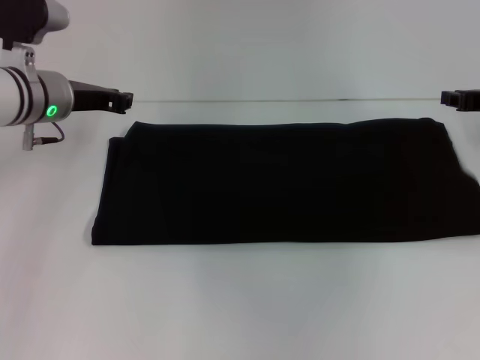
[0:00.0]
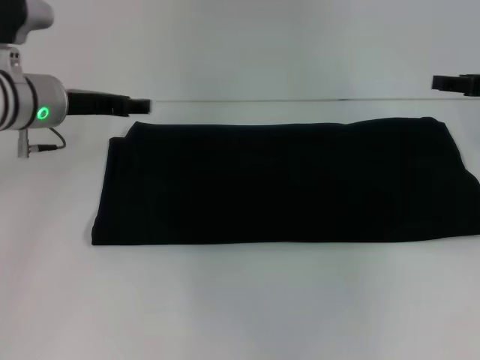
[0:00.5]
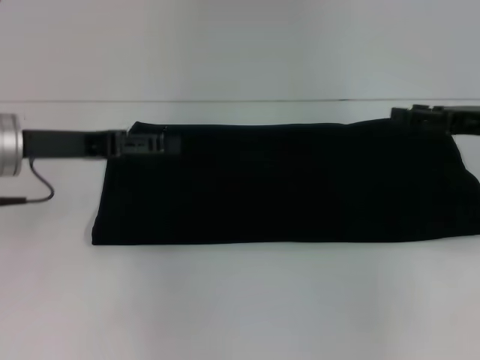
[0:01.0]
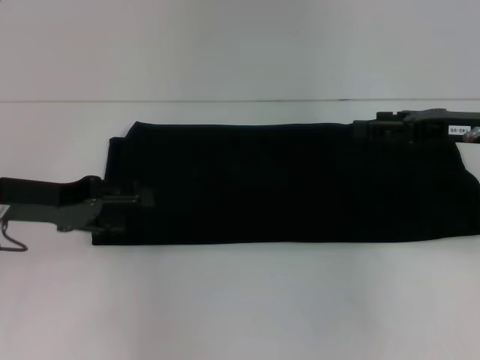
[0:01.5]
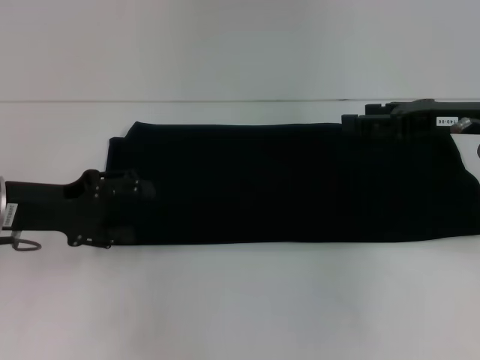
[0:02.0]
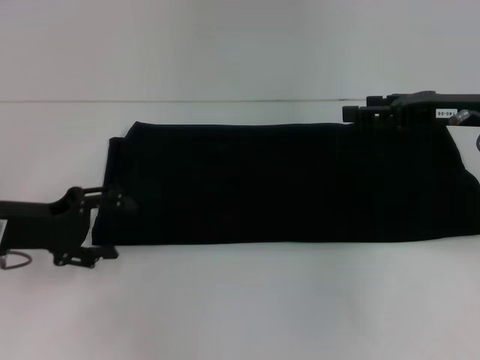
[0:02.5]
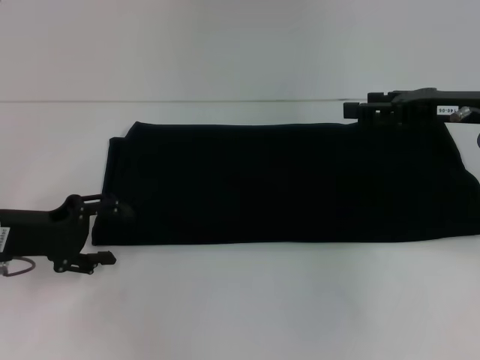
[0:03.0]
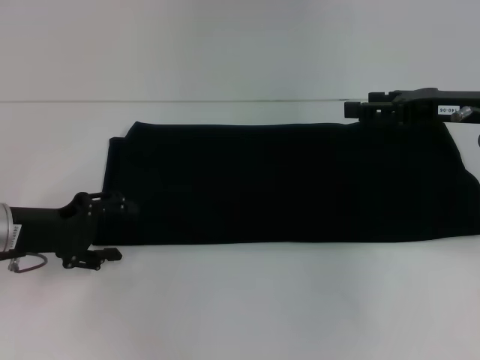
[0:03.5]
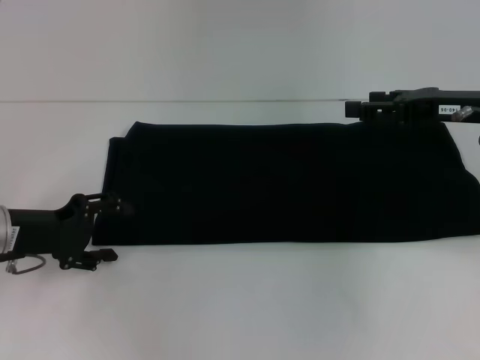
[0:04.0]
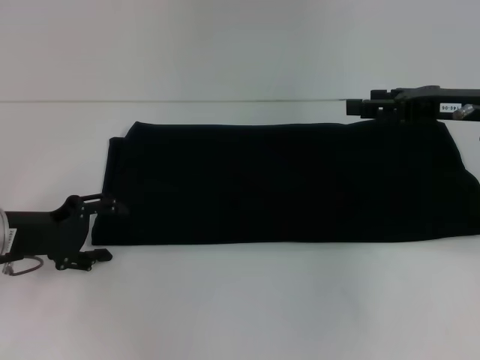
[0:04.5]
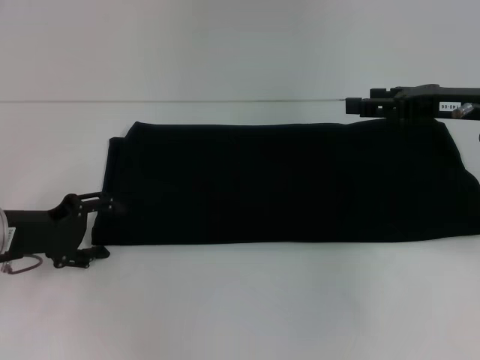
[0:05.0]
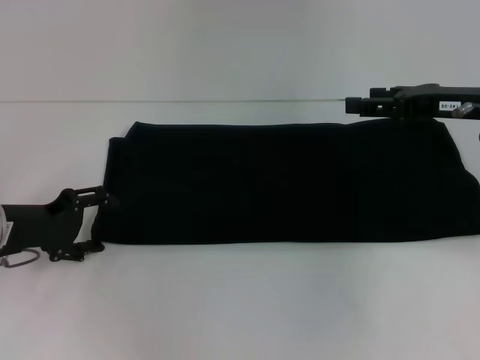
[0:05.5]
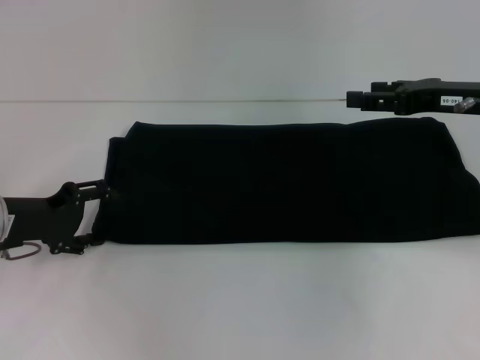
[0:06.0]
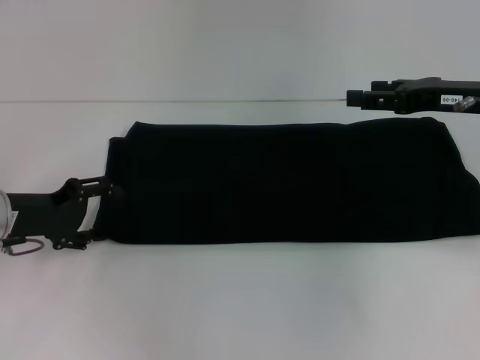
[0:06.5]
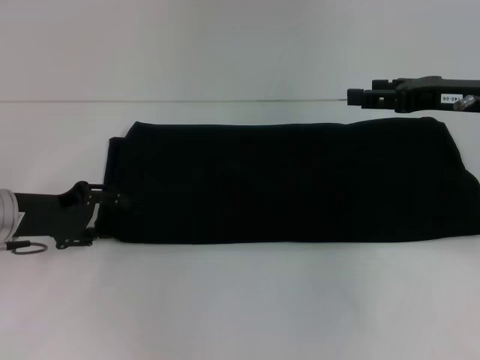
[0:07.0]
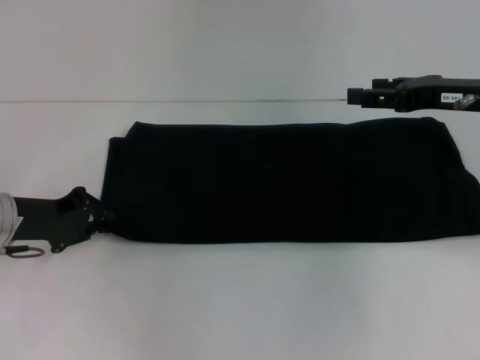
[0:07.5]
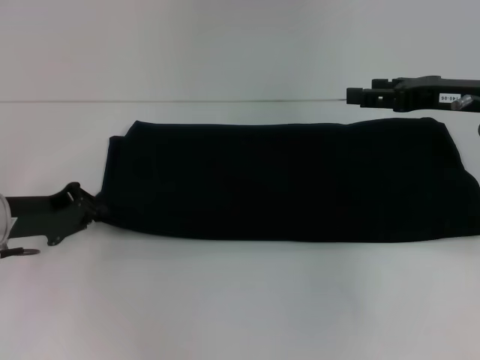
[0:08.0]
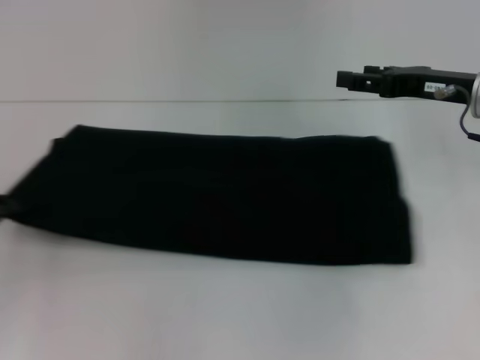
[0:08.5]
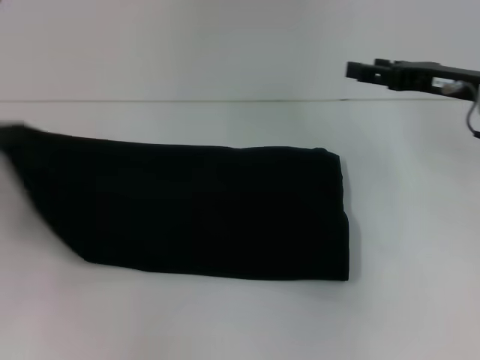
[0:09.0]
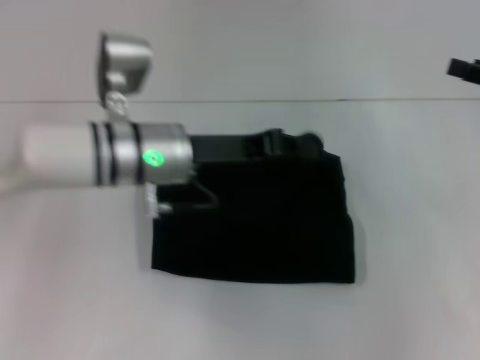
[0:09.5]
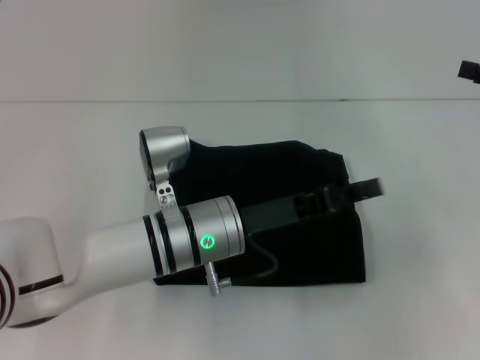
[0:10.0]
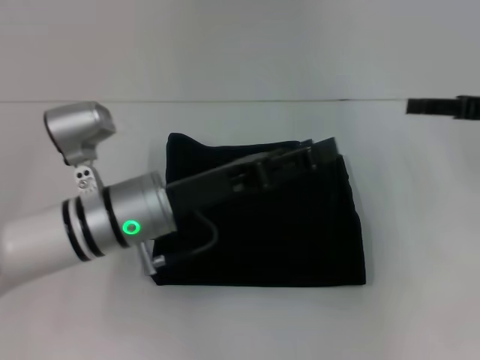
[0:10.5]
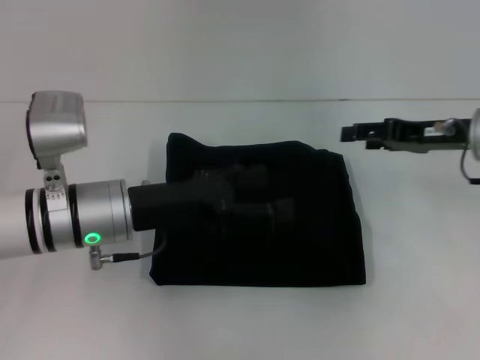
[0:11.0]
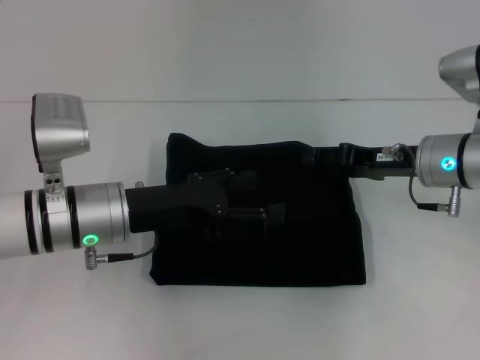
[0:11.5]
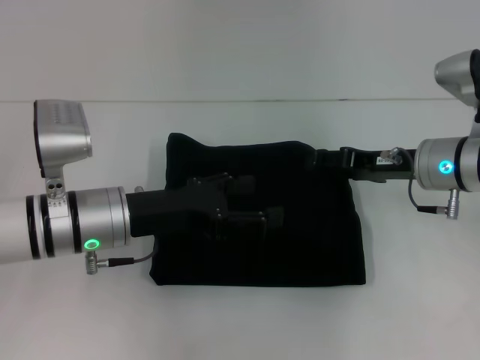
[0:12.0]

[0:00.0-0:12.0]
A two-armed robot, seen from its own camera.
Step, 0:00.0 to 0:10.5: Fold the clothes with your left hand.
0:00.0 to 0:02.0: The left gripper goes some 15 cm backward and to the left, and opens up. The right gripper heads to the left, covering roughly 5 cm, and opens up.
0:02.0 to 0:04.0: The grippers make only small movements.
0:04.0 to 0:06.0: The grippers make only small movements.
0:06.0 to 0:08.0: The left gripper closes up.
0:08.0 to 0:10.0: The left gripper moves to the right, about 25 cm; the right gripper is displaced to the right by approximately 10 cm.
0:10.0 to 0:12.0: The left gripper moves to the left, about 10 cm, and opens up. The right gripper moves to the left and downward, approximately 15 cm.

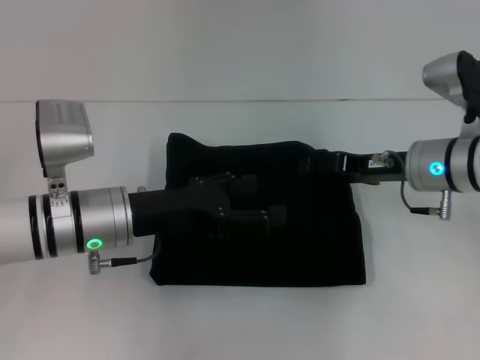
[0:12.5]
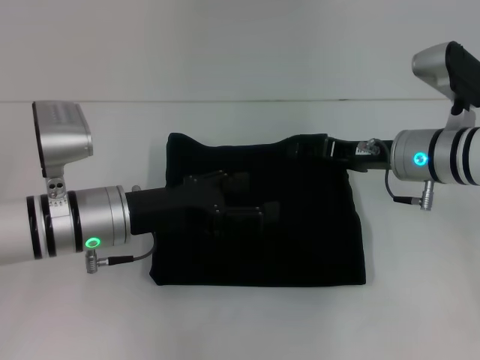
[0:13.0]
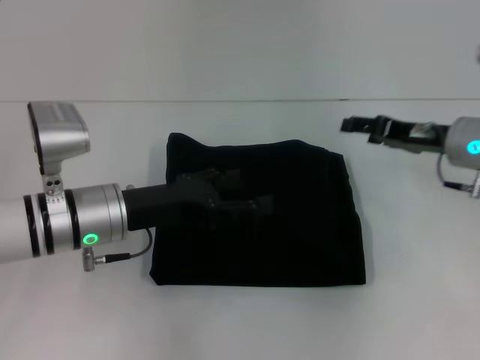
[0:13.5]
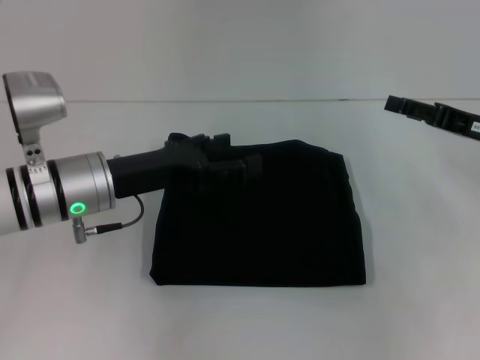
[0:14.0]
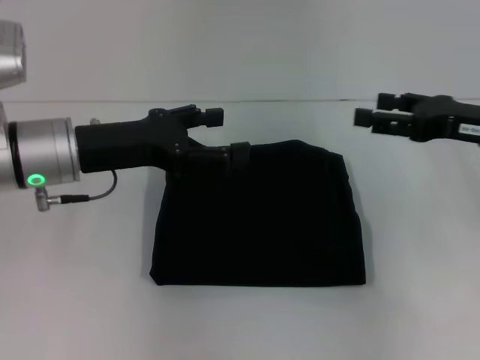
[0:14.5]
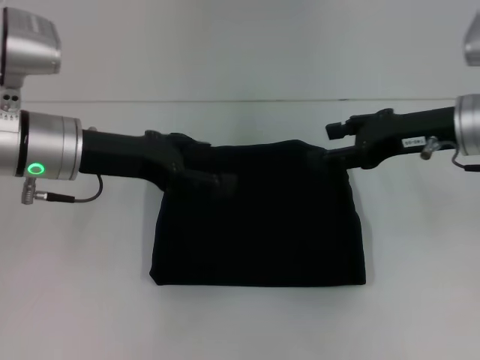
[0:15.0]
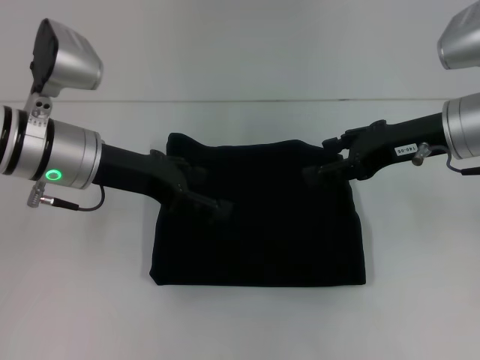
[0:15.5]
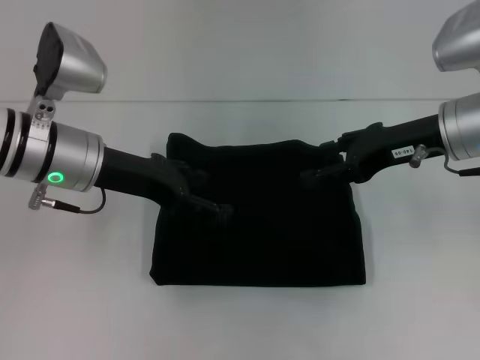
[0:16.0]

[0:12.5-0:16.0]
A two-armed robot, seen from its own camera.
0:12.5 to 0:14.5: The right gripper goes roughly 10 cm to the right and upward; the left gripper goes some 5 cm upward.
0:14.5 to 0:16.0: The right gripper is displaced to the left by some 5 cm.

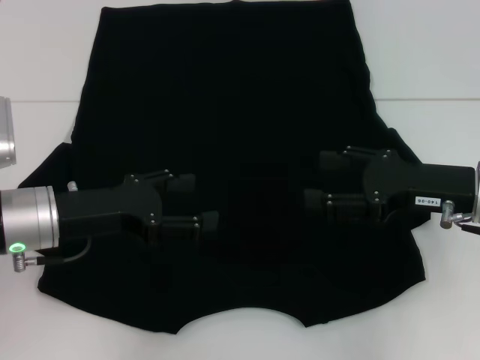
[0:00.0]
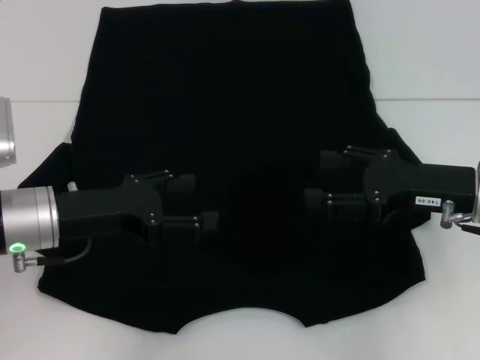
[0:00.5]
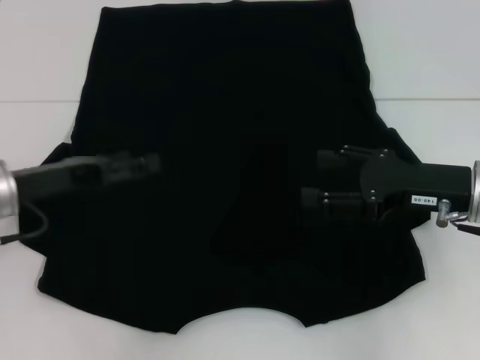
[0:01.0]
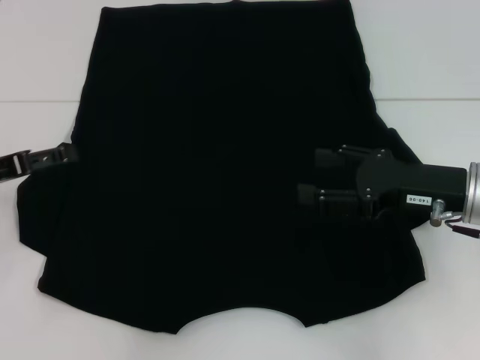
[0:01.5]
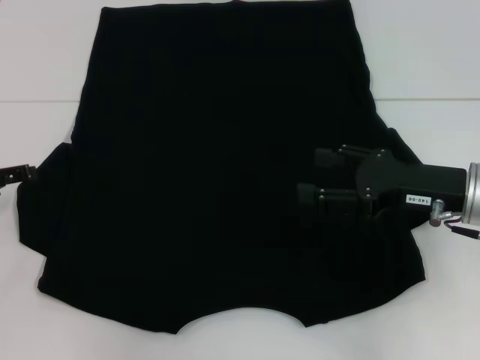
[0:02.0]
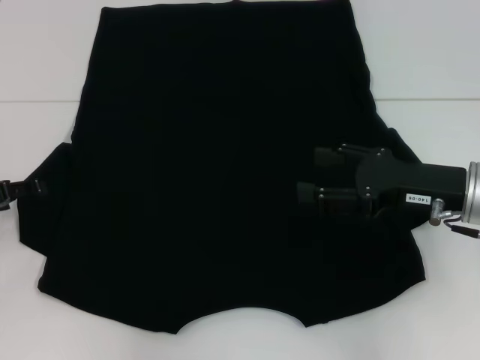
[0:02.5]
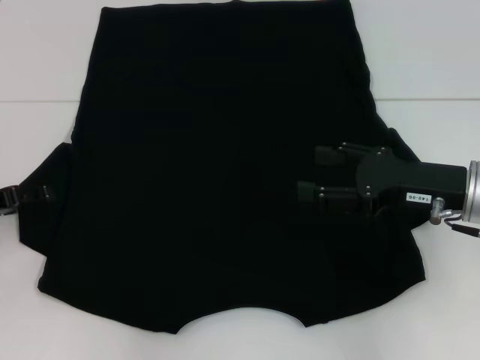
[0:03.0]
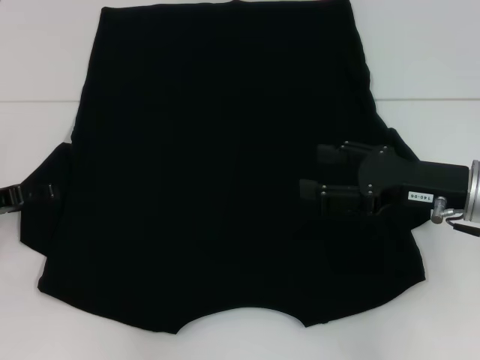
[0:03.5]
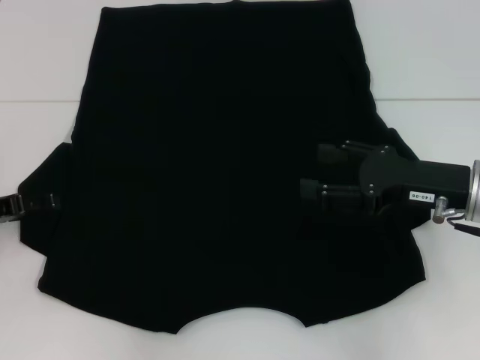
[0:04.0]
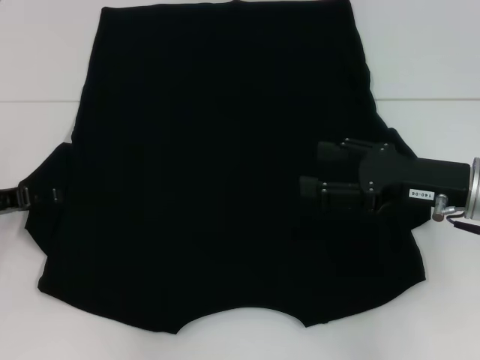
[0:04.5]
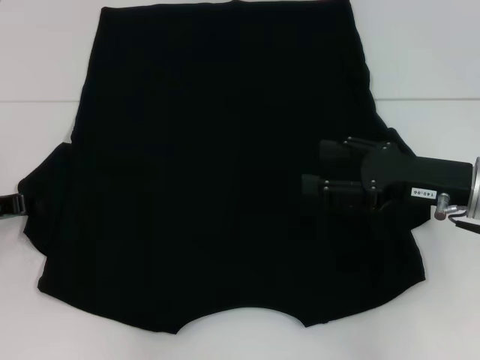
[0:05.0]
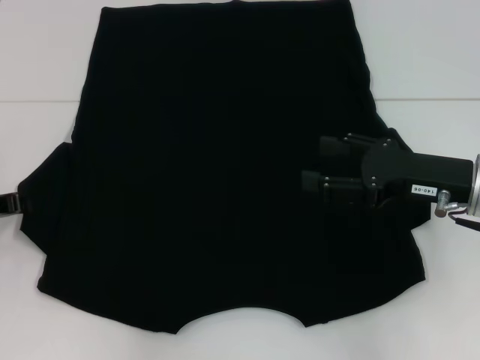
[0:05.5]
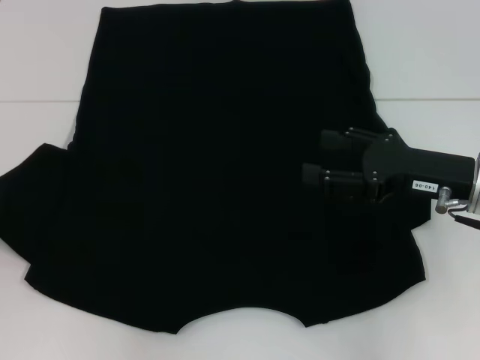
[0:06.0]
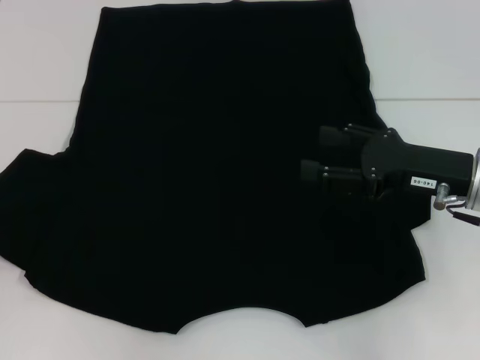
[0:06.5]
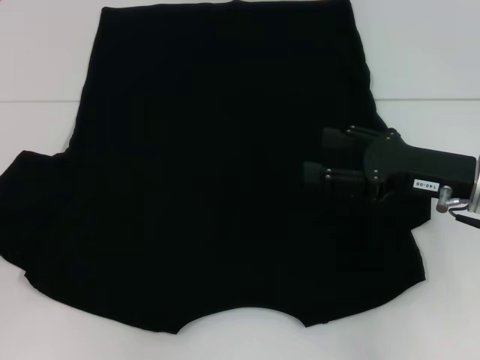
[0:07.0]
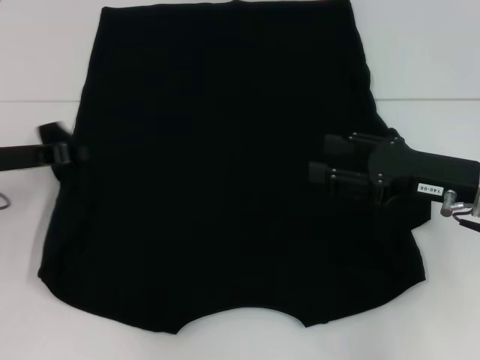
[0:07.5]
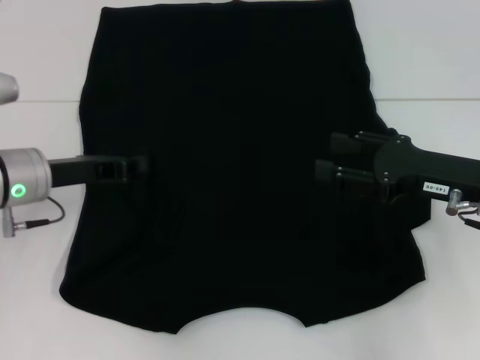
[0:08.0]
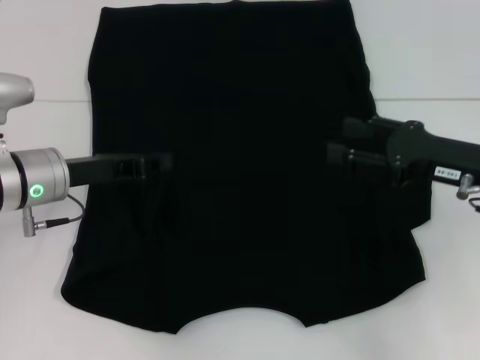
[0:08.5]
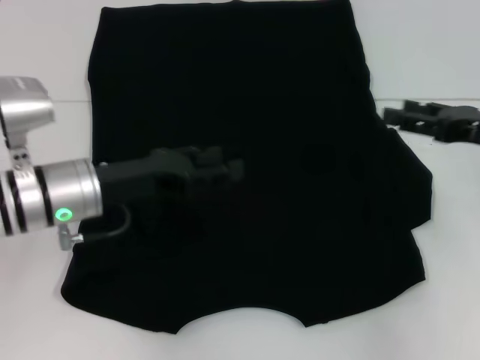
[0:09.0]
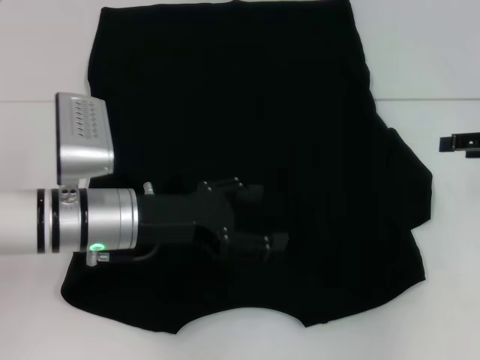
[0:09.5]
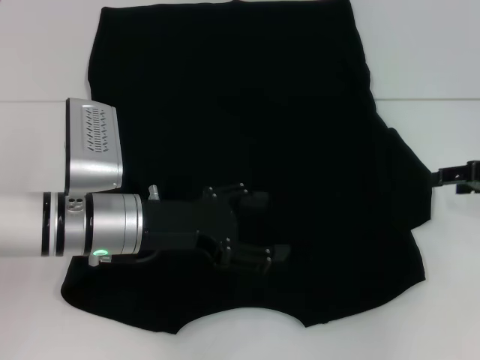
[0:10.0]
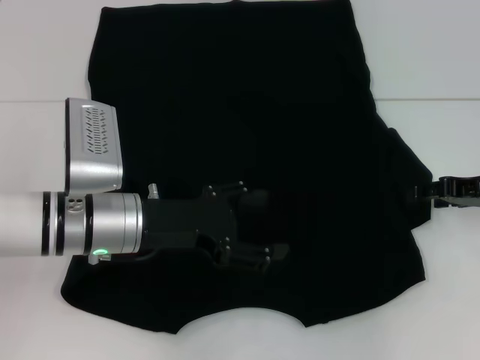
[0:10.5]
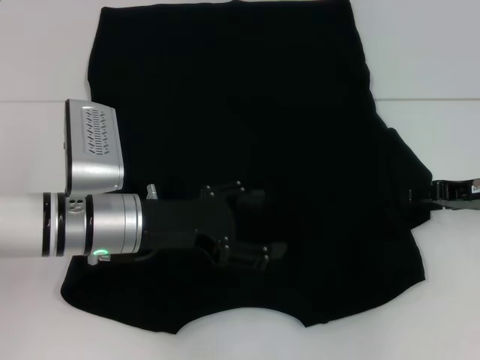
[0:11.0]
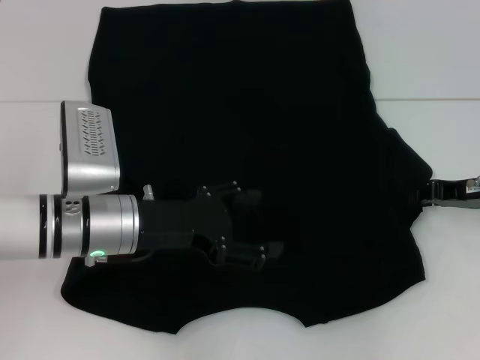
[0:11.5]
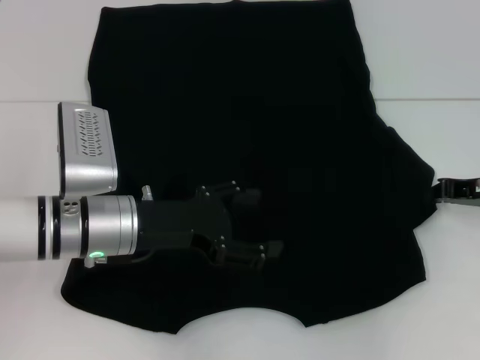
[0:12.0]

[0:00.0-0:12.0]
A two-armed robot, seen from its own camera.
Step, 0:00.0 to 0:08.0: Fold the bottom left sleeve with your left hand.
0:00.0 to 0:02.0: The left gripper heads to the left, covering some 15 cm.
0:02.0 to 0:04.0: There are only small adjustments of the grippers.
0:04.0 to 0:06.0: The left gripper closes up.
0:06.0 to 0:08.0: The left gripper is displaced to the right by approximately 10 cm.
0:08.0 to 0:10.0: Both grippers travel together to the right, some 10 cm. The left gripper opens.
0:10.0 to 0:12.0: The right gripper closes.
